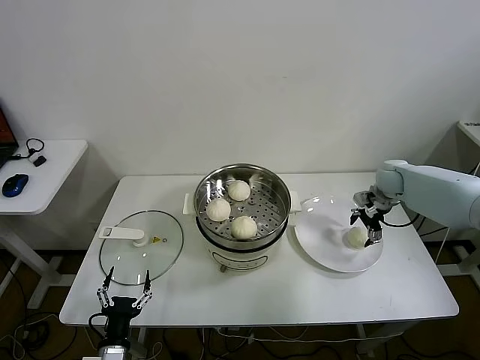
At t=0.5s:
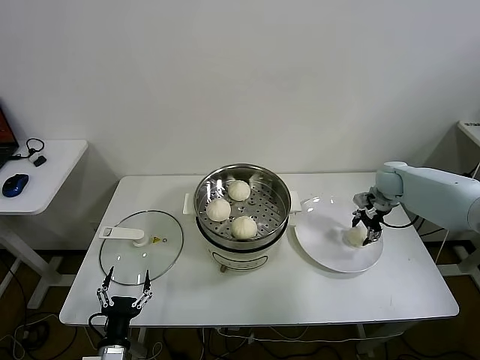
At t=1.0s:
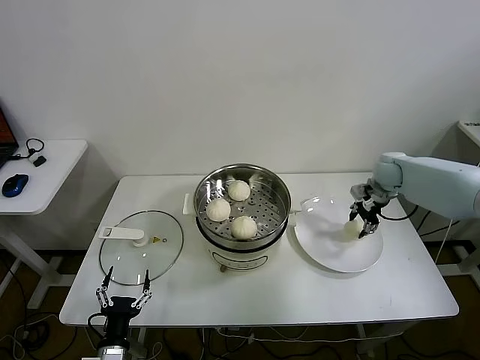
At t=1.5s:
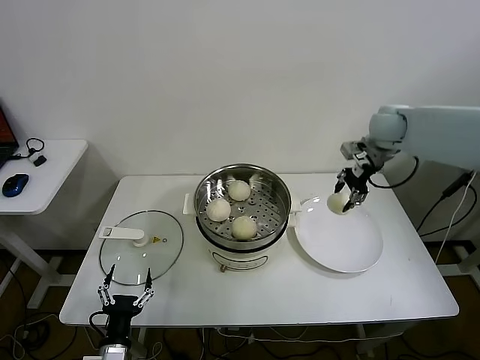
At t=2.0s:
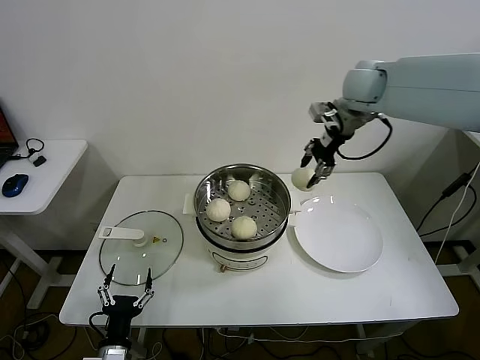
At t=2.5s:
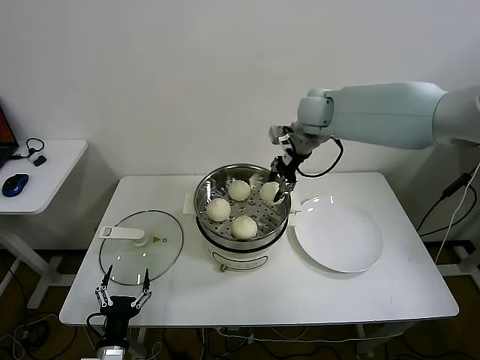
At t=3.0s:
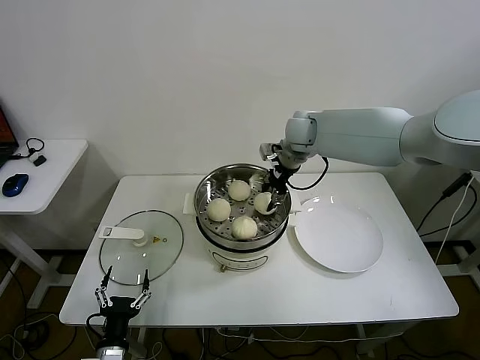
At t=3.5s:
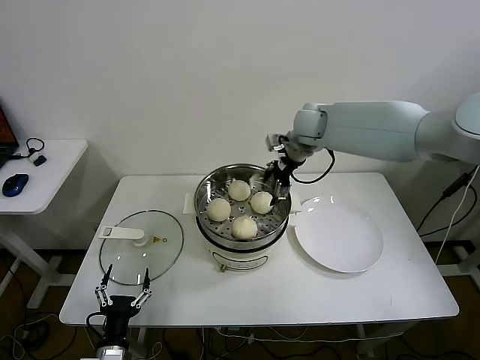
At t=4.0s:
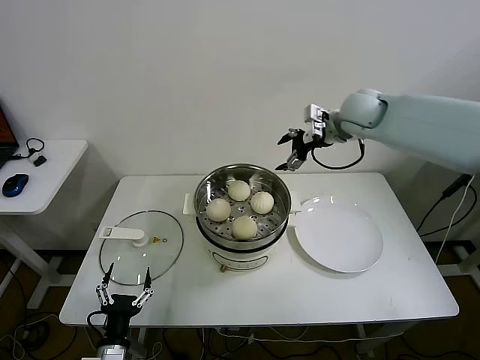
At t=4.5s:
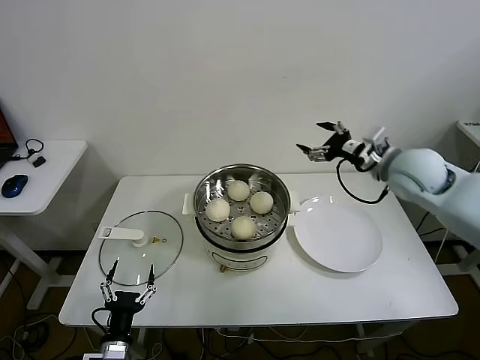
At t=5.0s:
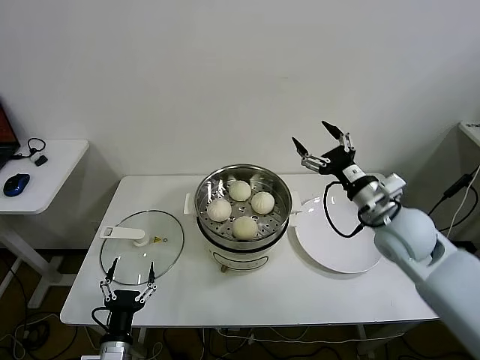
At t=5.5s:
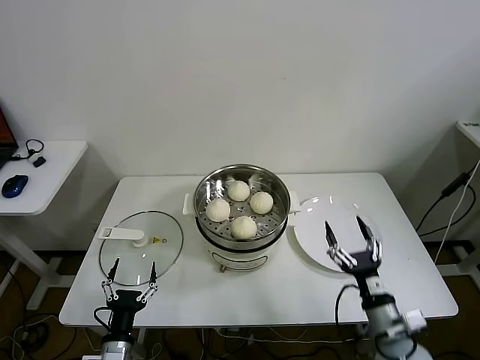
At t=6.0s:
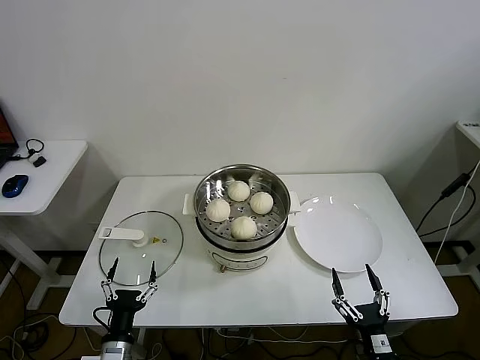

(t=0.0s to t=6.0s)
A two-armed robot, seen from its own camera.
Task of the whole recording: take steamed baozi put them in steamer.
Step, t=1.0s - t=3.5s: Place the baozi on the steamer with right gripper.
t=0.0s - t=2.0s: The right gripper is displaced upward and to the left by some 30 cm, and closes up.
t=2.0s - t=4.0s: The right gripper is displaced downward by about 5 cm, and opens its fingers.
t=4.0s - t=6.0s: The right gripper shifts about 60 cm backward and downward.
